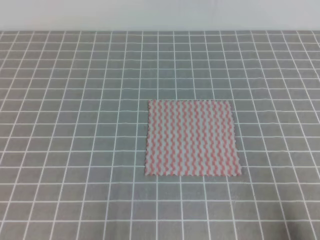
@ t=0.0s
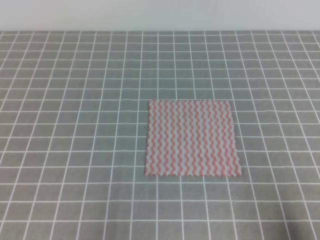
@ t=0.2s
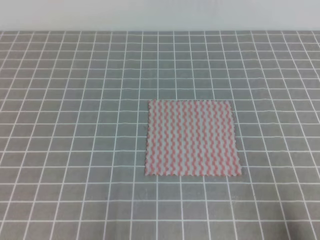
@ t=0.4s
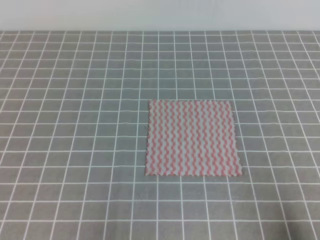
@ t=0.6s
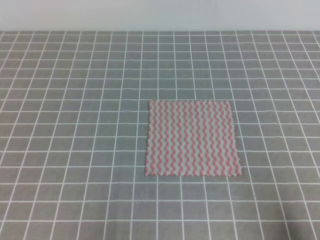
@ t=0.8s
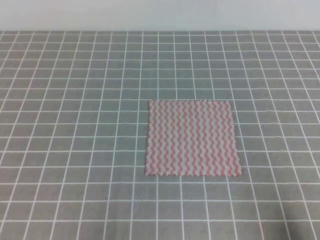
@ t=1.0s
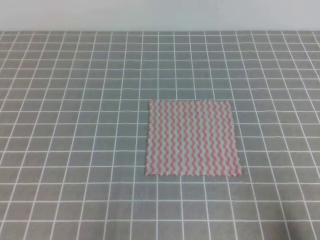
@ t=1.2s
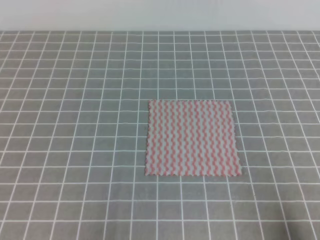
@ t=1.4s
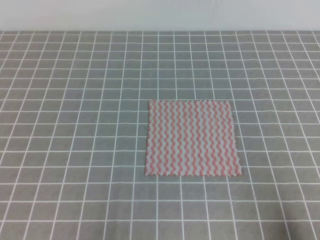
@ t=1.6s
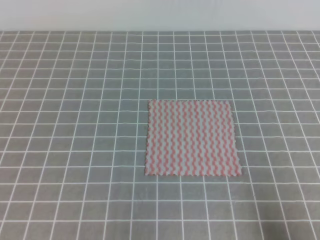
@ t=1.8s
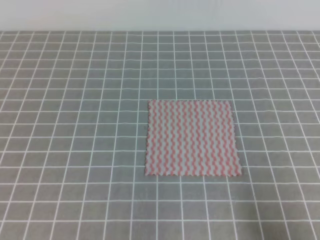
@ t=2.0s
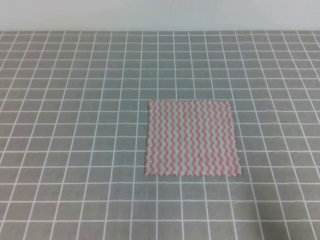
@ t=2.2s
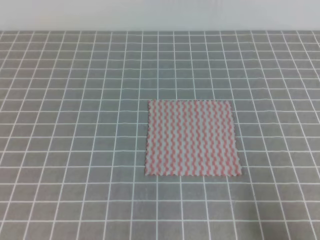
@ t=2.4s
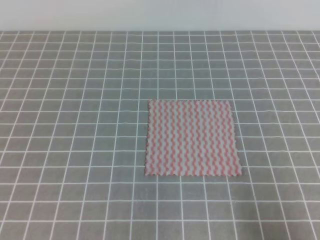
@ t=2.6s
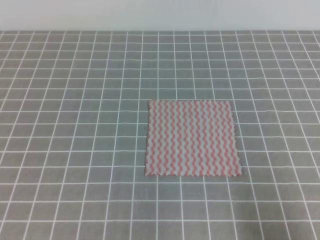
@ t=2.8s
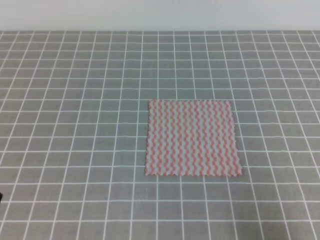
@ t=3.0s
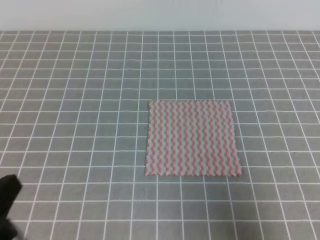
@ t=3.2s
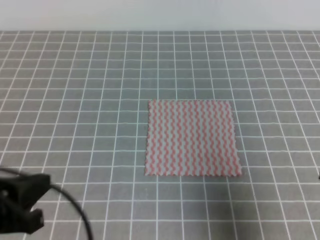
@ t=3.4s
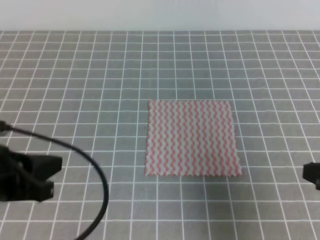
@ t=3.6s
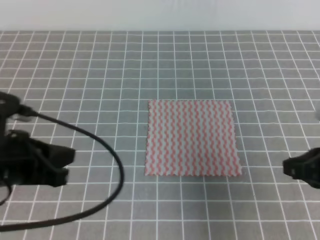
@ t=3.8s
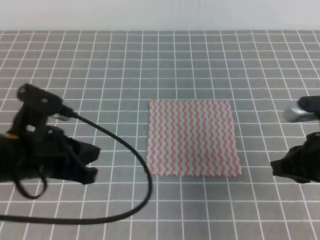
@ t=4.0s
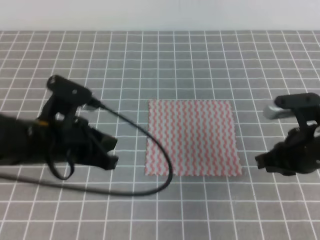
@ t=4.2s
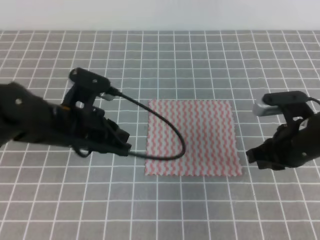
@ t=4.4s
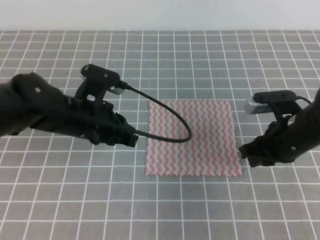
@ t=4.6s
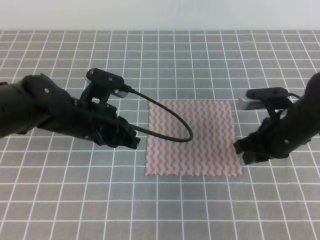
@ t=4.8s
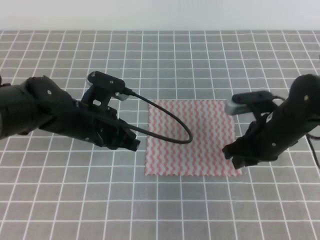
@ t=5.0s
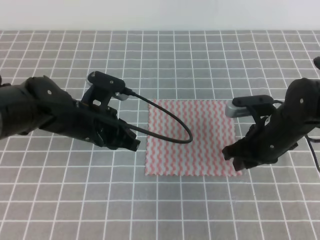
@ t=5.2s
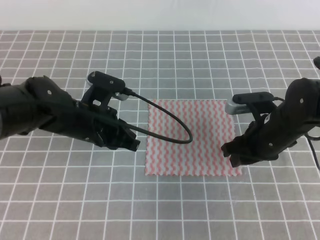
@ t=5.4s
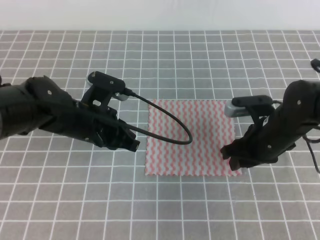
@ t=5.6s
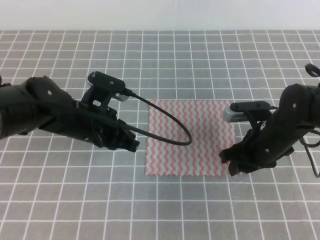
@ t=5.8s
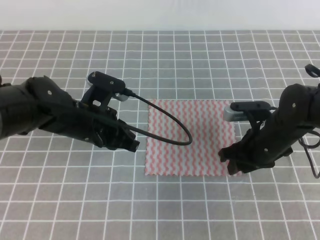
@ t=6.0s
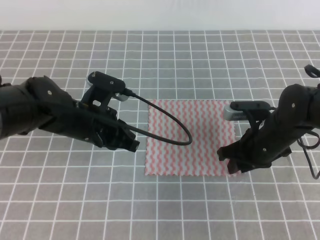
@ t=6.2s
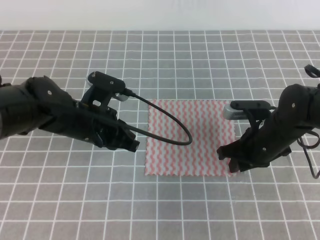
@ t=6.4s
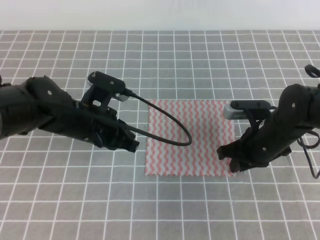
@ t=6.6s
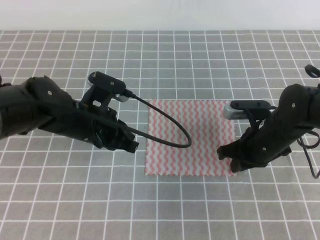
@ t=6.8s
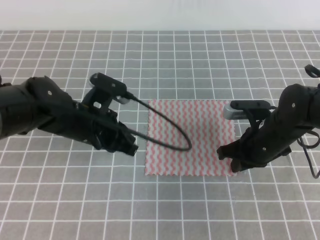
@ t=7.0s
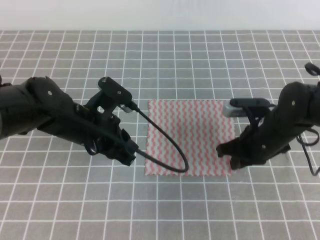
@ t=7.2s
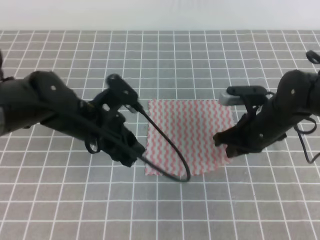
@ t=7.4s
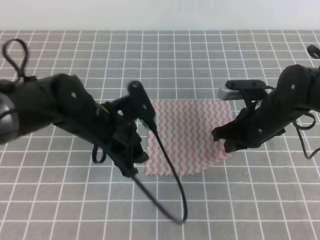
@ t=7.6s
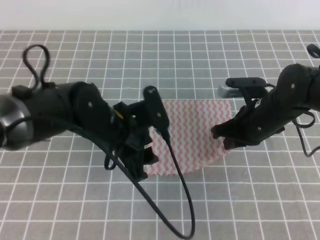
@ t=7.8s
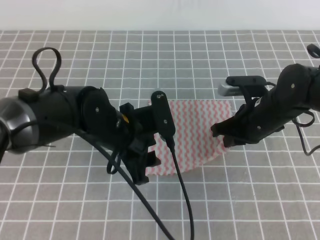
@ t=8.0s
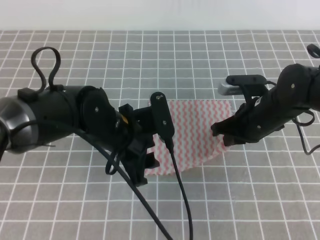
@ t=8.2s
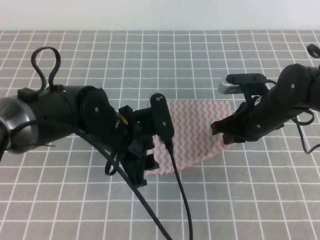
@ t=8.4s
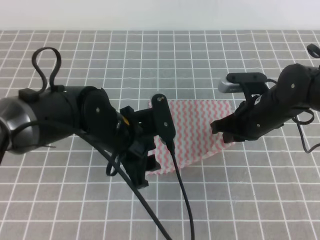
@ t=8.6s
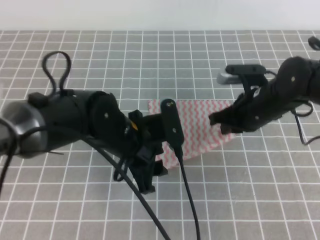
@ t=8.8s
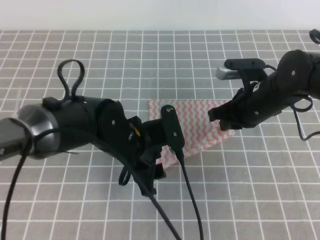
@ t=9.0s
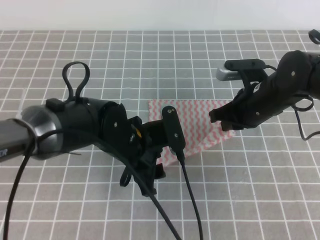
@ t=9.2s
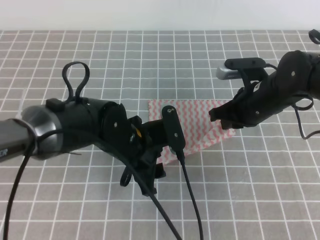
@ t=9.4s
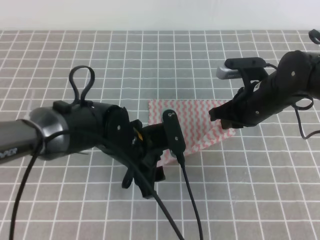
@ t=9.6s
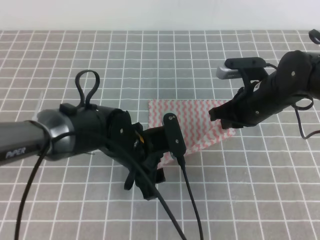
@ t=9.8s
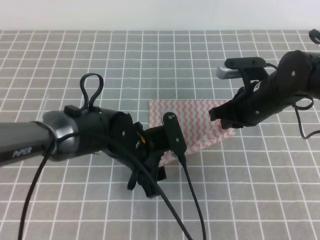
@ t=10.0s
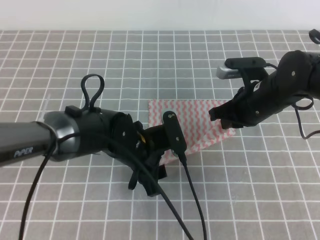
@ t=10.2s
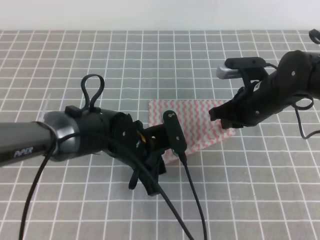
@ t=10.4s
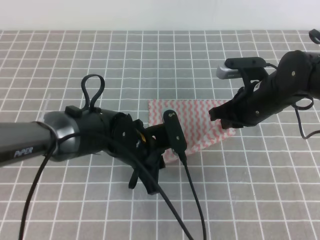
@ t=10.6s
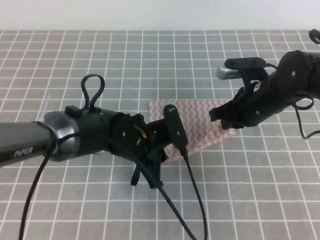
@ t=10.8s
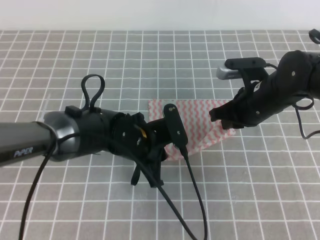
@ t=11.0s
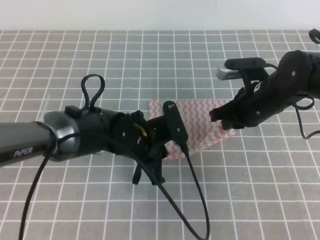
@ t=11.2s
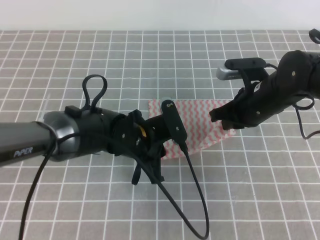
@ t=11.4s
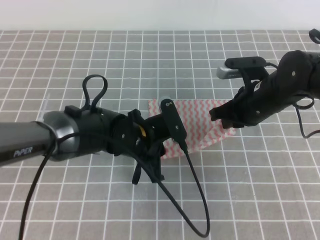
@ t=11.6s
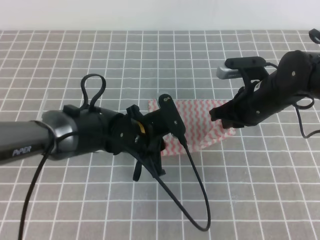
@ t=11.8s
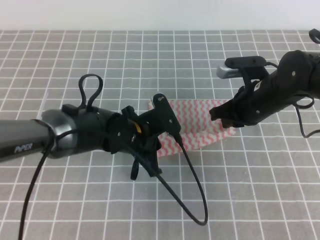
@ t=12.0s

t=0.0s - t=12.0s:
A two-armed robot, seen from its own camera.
t=3.0s - t=4.4s: The left gripper shifts approximately 25 cm forward and to the right. Meanwhile the right gripper is displaced forward by roughly 20 cm.
t=4.4s - t=6.0s: The left gripper shifts by about 5 cm; the right gripper moves roughly 10 cm, and opens up.
t=6.0s - t=7.6s: The left gripper opens its fingers. The right gripper closes up.
t=9.0s - t=10.4s: The left gripper closes.
t=10.4s - t=12.0s: The left gripper closes up.

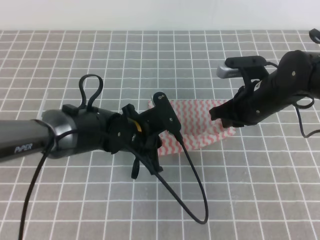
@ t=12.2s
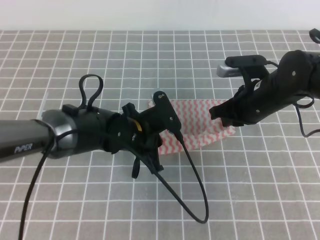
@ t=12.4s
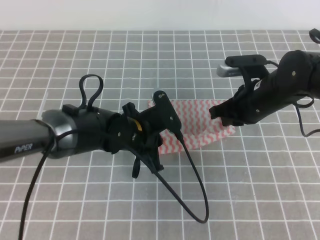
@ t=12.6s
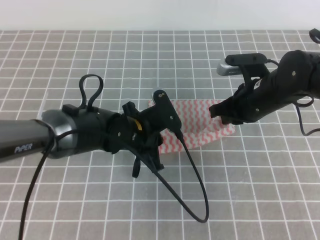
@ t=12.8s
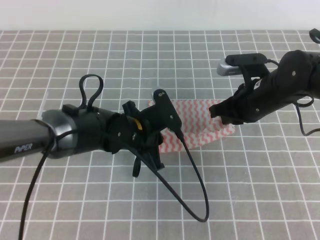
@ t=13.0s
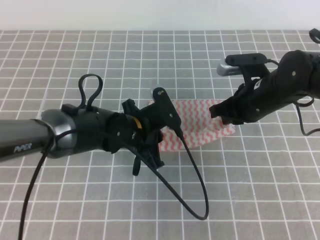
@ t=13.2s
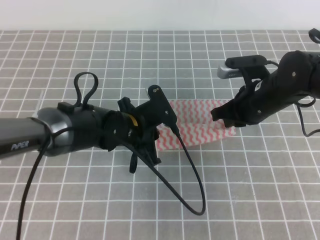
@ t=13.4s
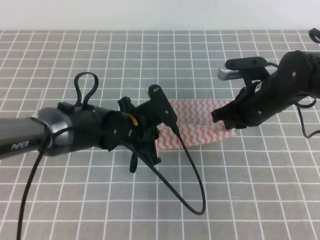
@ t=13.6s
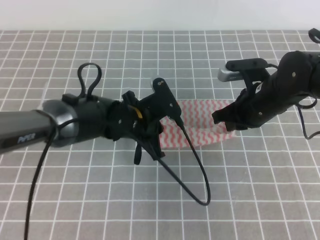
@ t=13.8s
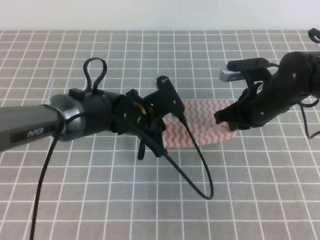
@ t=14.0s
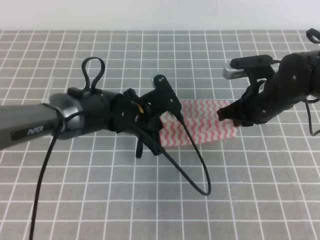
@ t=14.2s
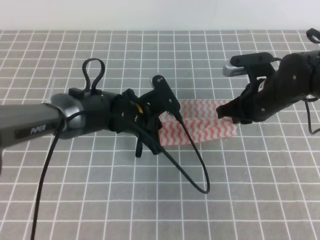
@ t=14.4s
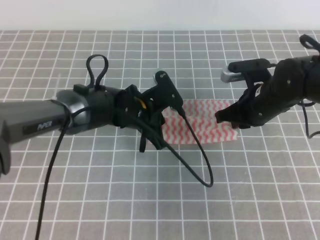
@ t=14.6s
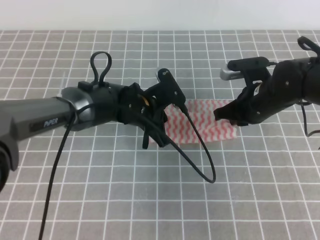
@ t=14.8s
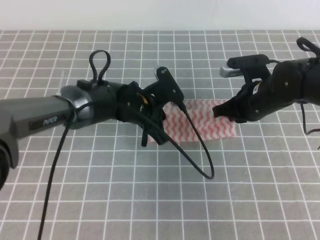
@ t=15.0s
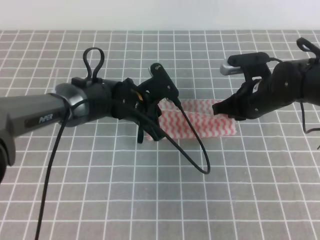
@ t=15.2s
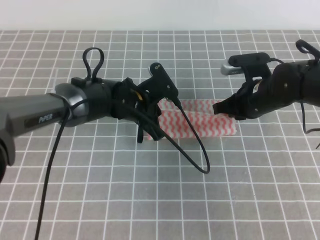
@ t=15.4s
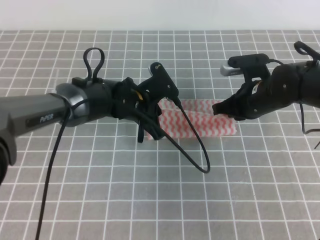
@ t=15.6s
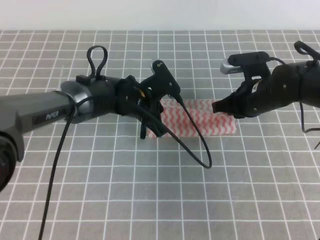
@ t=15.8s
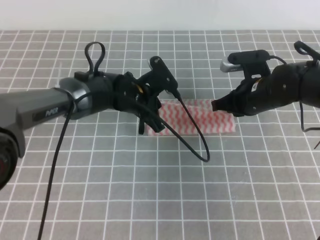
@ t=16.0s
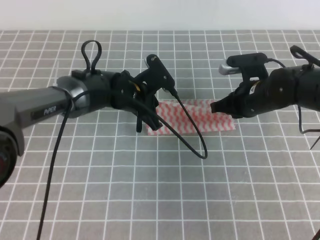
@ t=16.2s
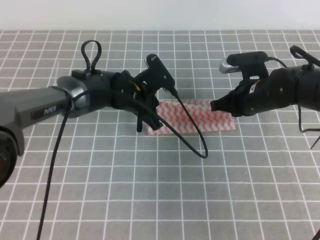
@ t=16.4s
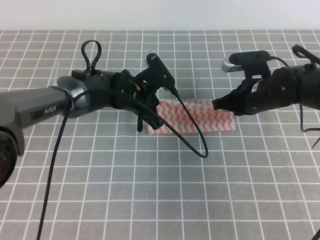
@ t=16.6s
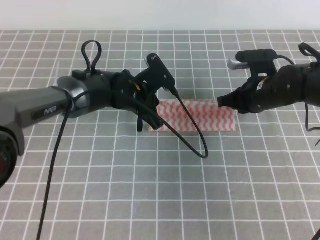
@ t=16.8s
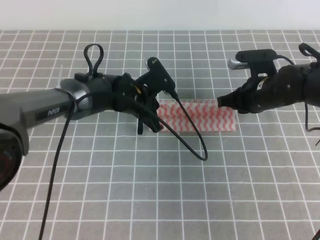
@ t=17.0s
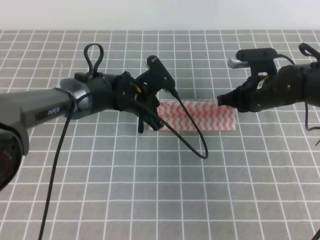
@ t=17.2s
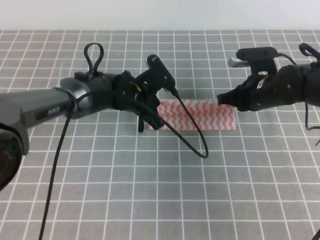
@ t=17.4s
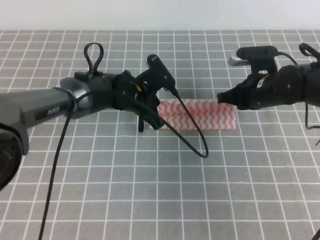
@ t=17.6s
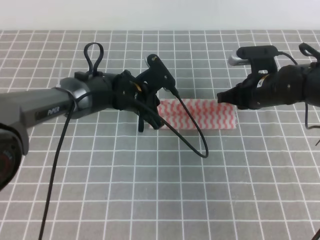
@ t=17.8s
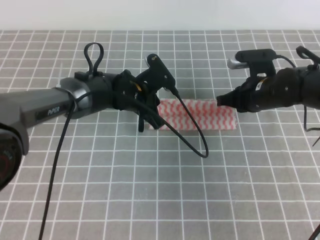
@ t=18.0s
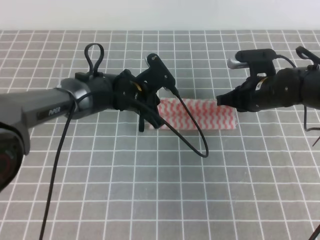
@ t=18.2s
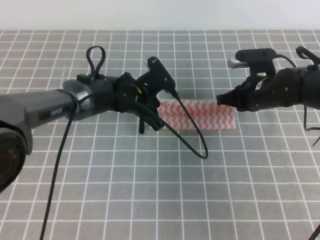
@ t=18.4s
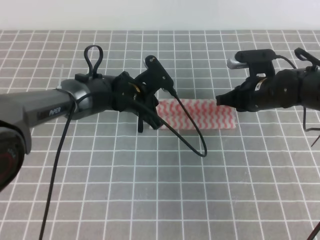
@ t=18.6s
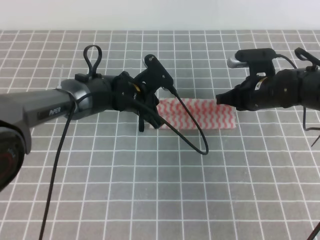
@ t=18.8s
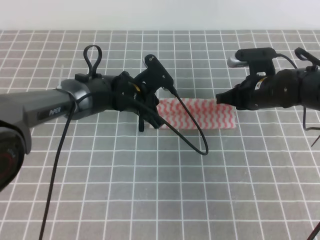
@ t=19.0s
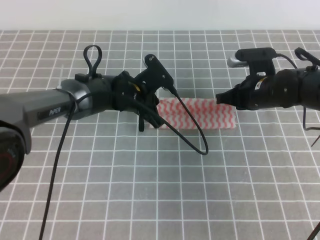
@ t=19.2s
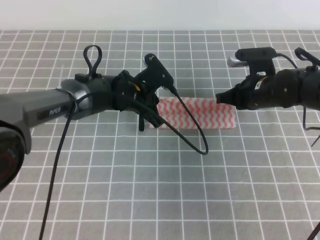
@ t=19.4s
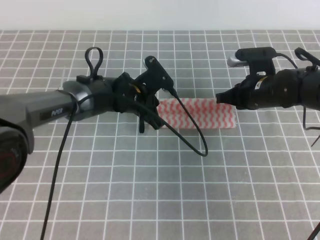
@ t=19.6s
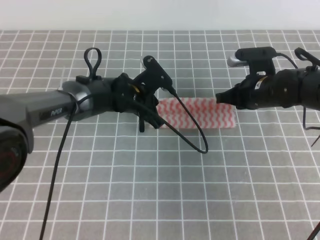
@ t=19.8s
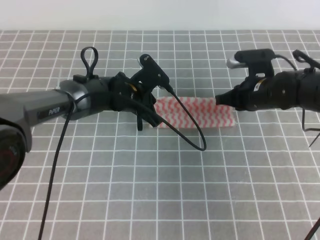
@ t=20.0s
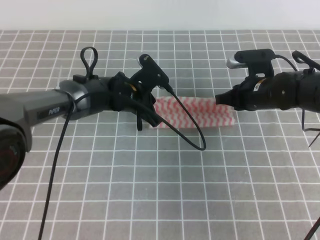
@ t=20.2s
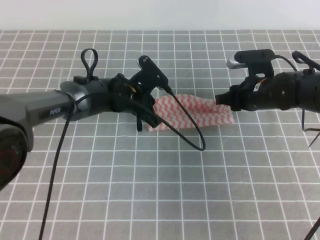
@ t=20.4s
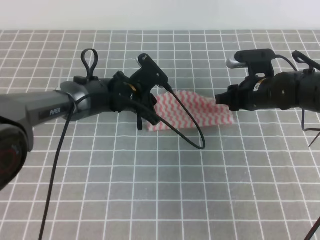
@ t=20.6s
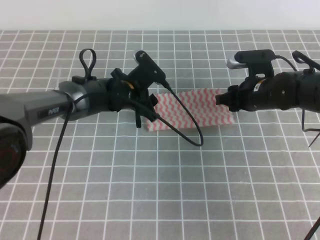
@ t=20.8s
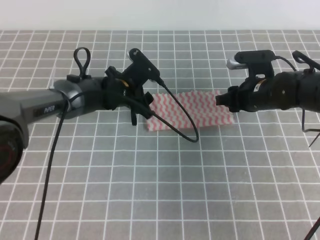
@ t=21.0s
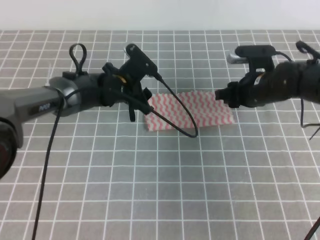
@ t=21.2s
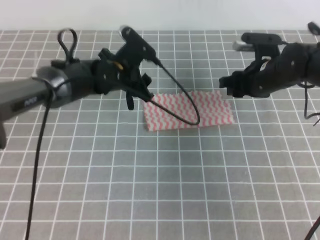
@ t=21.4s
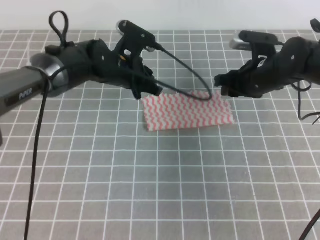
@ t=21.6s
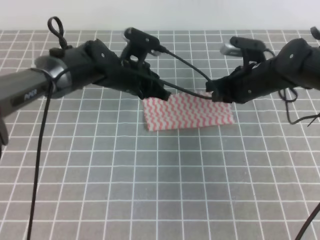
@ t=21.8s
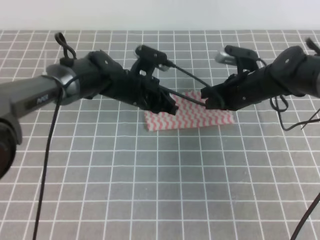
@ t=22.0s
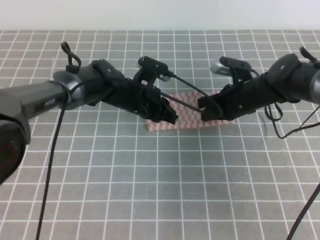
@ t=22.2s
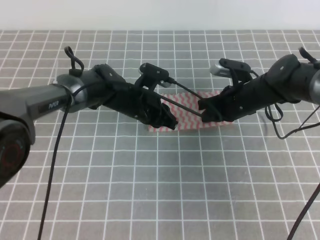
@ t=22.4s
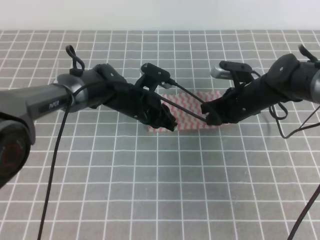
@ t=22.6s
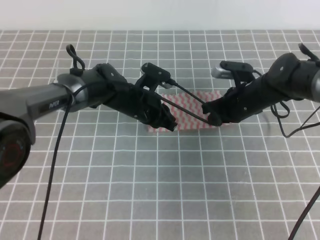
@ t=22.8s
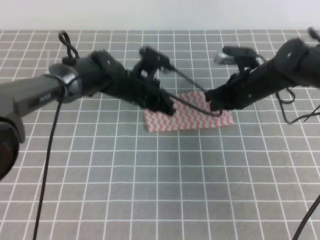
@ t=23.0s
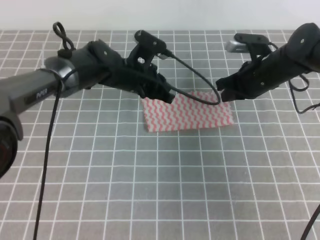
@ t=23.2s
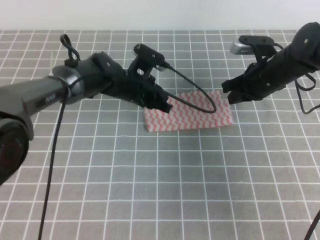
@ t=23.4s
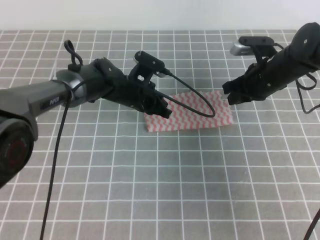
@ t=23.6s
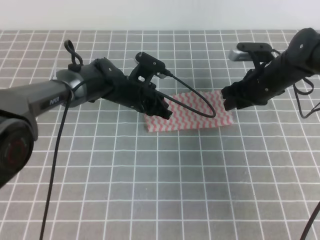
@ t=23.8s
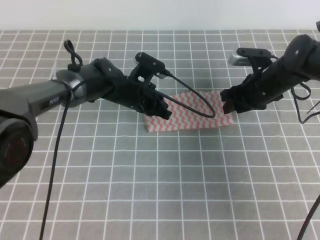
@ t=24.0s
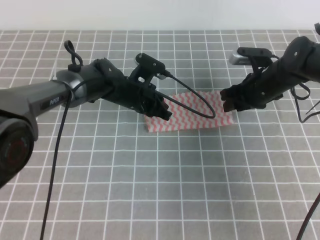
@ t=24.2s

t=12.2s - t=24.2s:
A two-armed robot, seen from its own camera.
t=12.2s - t=13.8s: The grippers stay close to where they were, moving slightly.
t=13.8s - t=15.2s: The grippers move only a little.
t=15.2s - t=16.6s: The grippers move only a little.
t=16.6s - t=18.2s: Both grippers stay put.
t=18.2s - t=19.8s: The two grippers keep their place.
t=19.8s - t=21.2s: The right gripper opens. The left gripper opens.
t=21.2s - t=22.6s: The left gripper closes up; the right gripper closes its fingers.
t=22.6s - t=24.2s: The right gripper opens.
